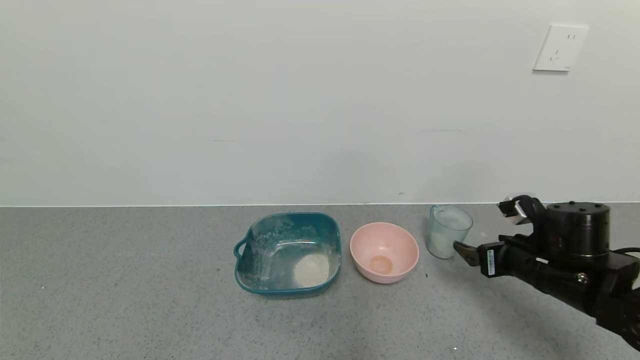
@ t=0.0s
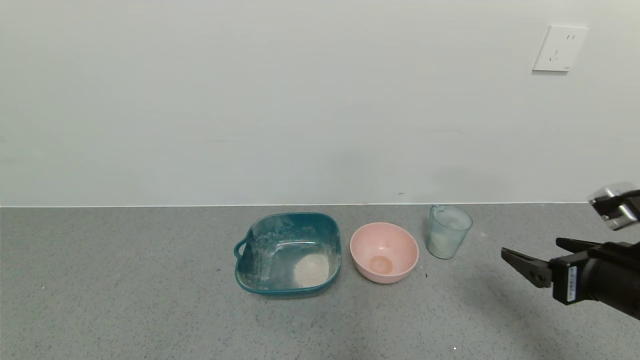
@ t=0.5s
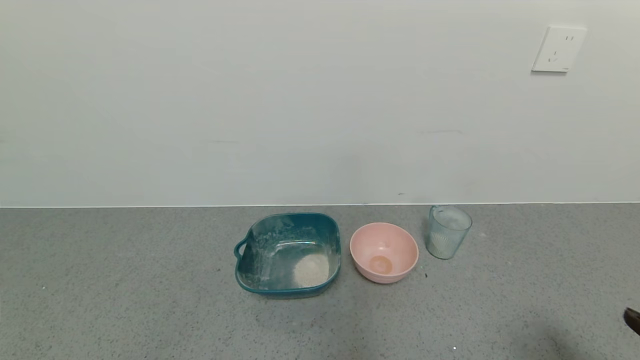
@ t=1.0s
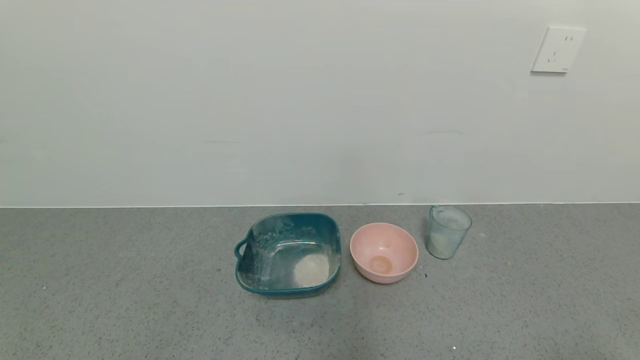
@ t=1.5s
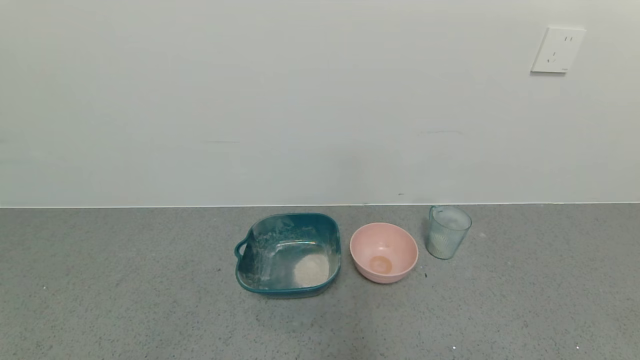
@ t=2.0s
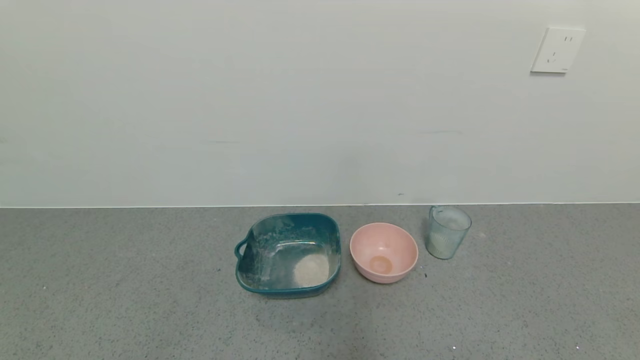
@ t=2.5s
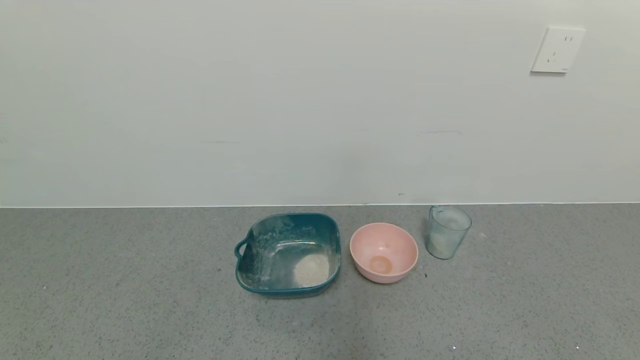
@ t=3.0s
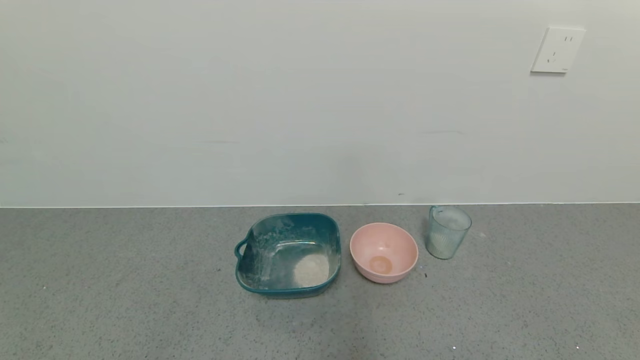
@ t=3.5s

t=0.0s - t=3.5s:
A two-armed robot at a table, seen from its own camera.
Task of the whole recording: use a gripper to pick up the cup and pour the powder into a bowl or tray.
t=0.0s - t=2.0s: The right gripper moves backward, approximately 30 cm.
